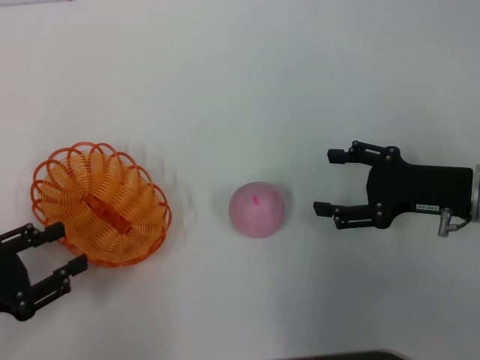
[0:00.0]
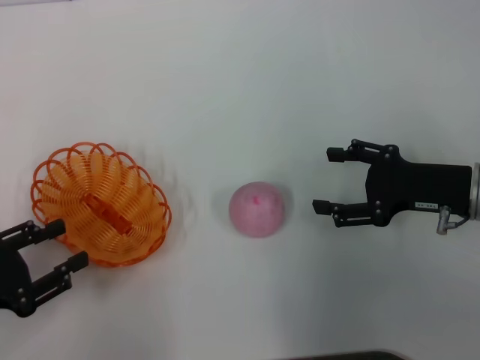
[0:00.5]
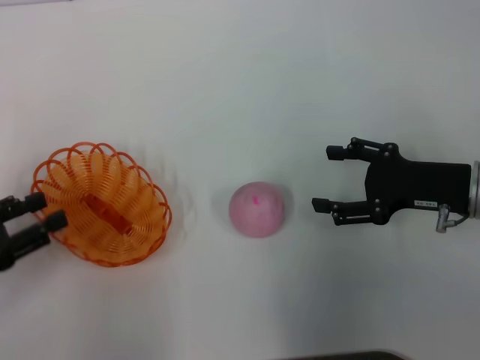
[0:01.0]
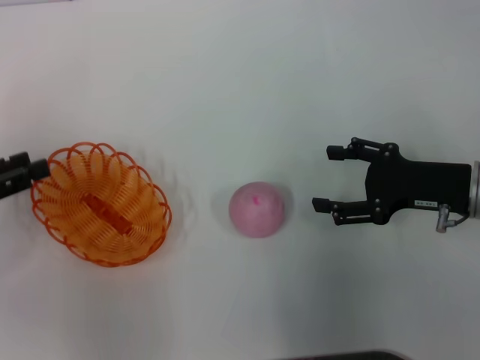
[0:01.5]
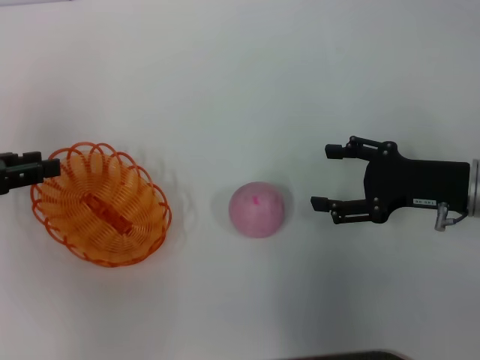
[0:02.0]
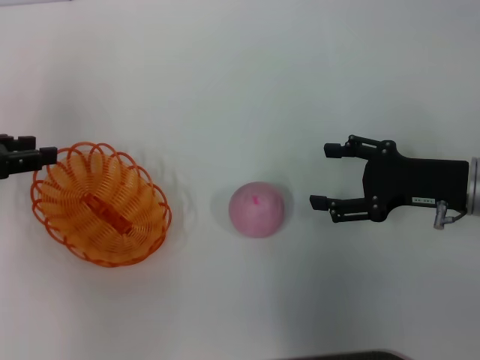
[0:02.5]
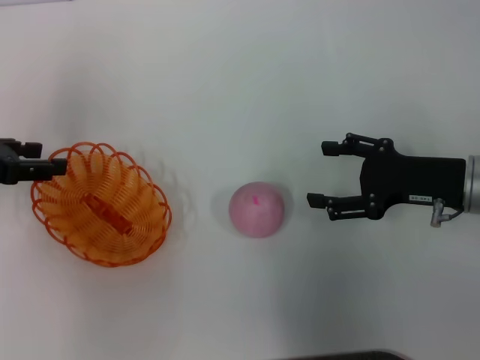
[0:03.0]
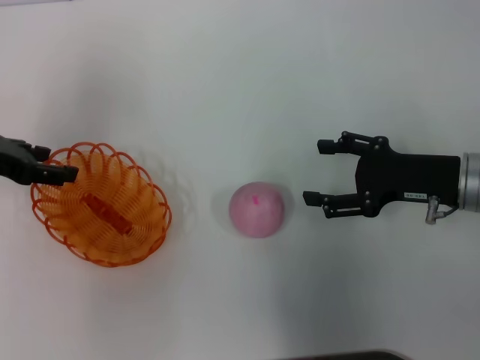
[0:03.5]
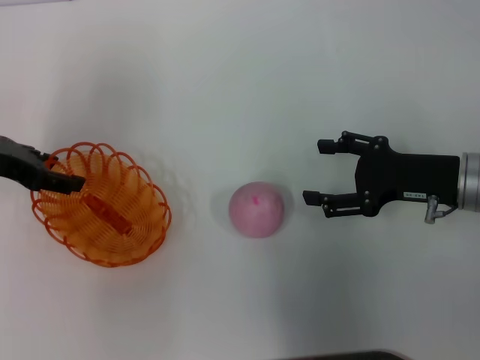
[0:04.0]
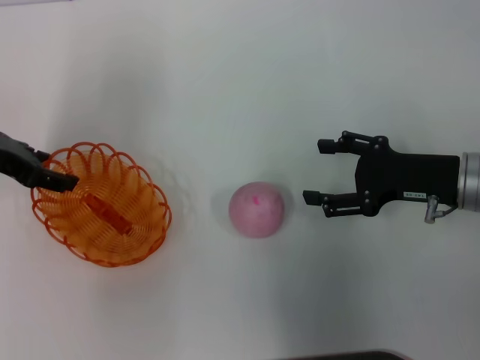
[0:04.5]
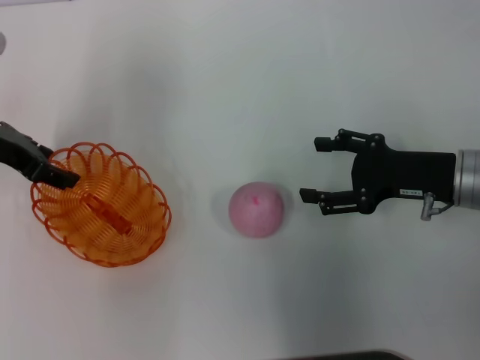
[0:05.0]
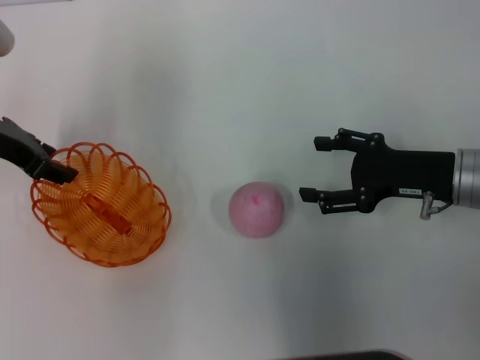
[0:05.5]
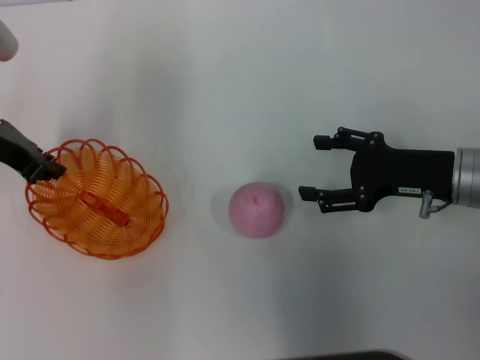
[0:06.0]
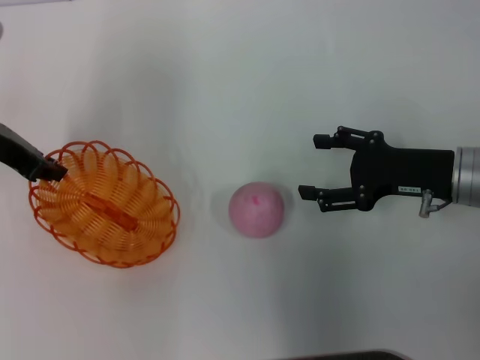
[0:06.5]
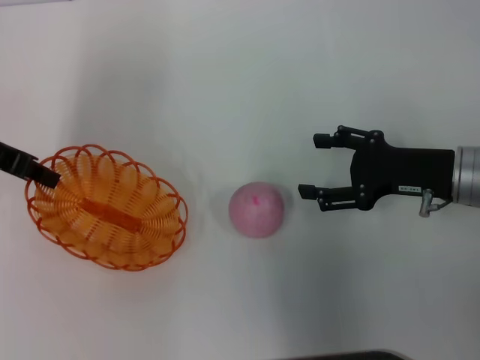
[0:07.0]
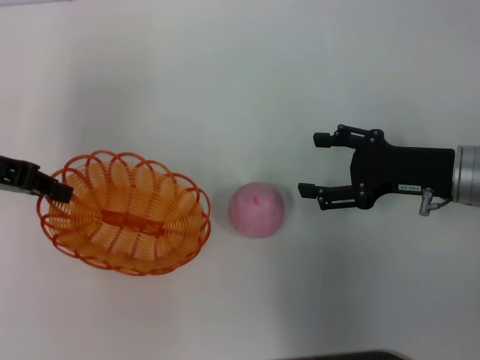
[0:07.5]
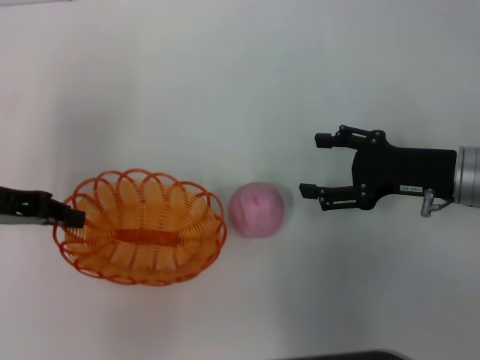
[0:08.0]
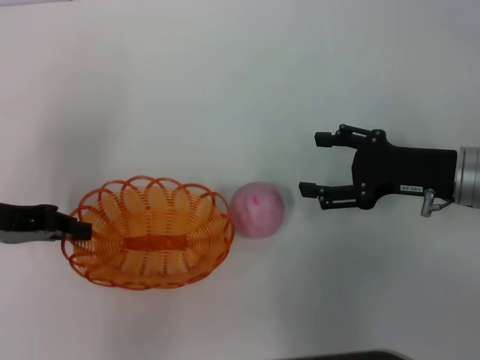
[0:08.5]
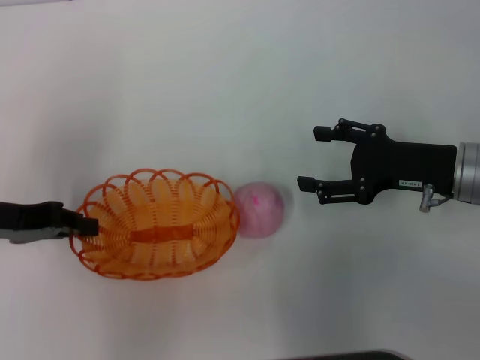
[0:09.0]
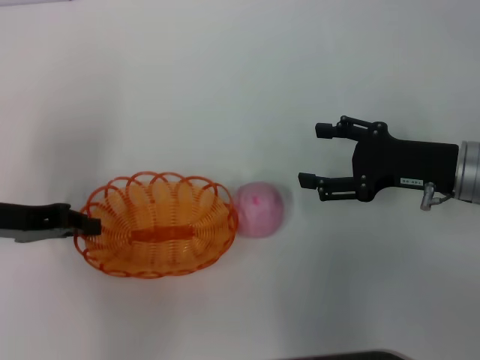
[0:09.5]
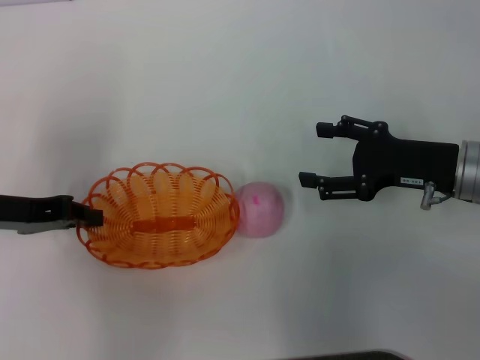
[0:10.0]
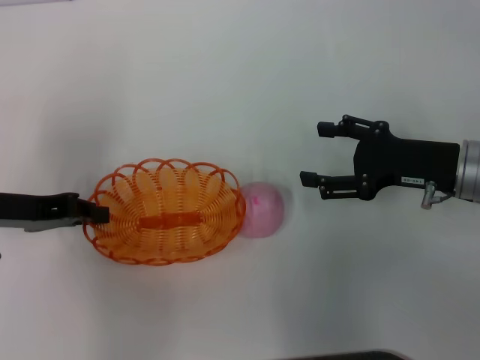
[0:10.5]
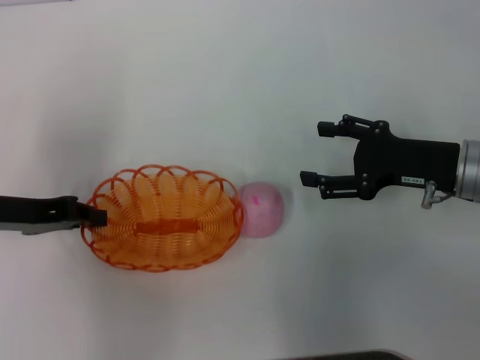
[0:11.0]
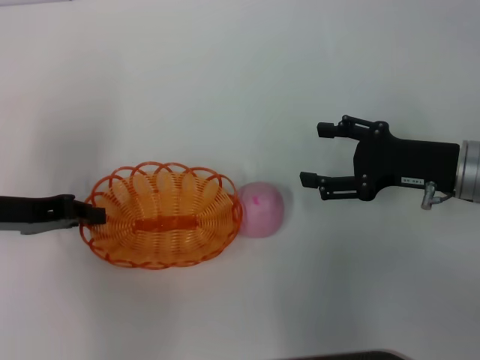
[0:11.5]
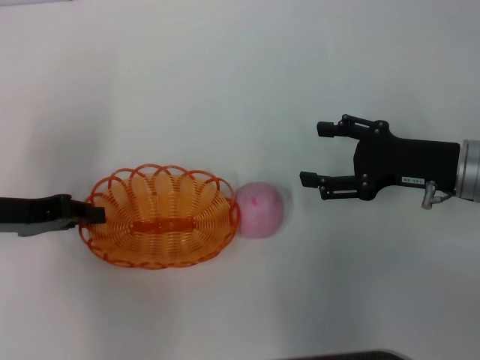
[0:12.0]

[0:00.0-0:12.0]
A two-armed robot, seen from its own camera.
Step, 0:00.0 to 0:07.5: Pick up the basket with the left gripper.
0:00.0 to 0:02.0: The left gripper travels forward and upward by some 15 cm.
0:02.0 to 0:04.0: The left gripper heads forward and to the right, covering some 10 cm.
0:04.0 to 0:06.0: The left gripper closes its fingers.
0:06.0 to 0:08.0: The left gripper goes roughly 5 cm backward.
0:08.0 to 0:10.0: The grippers move only a little.
0:10.0 to 0:12.0: Both grippers stay put.

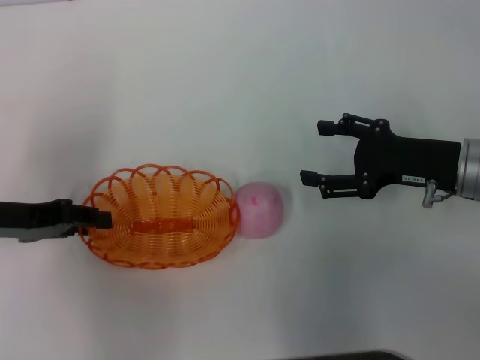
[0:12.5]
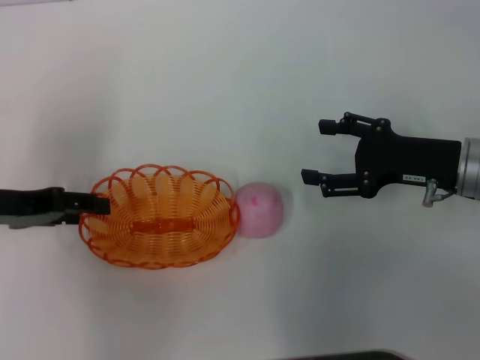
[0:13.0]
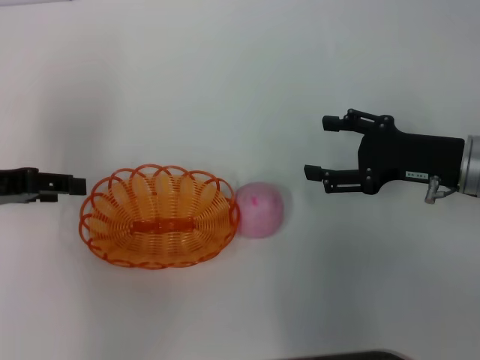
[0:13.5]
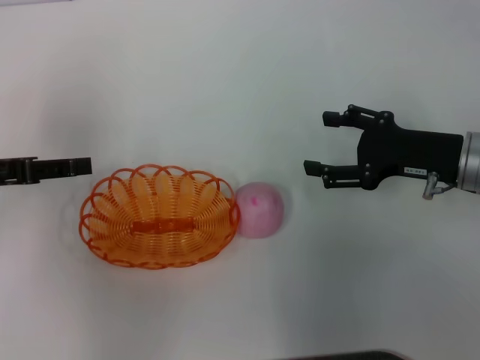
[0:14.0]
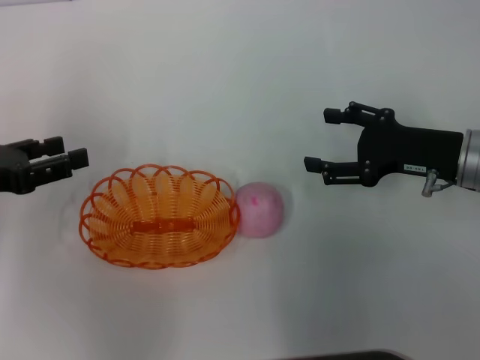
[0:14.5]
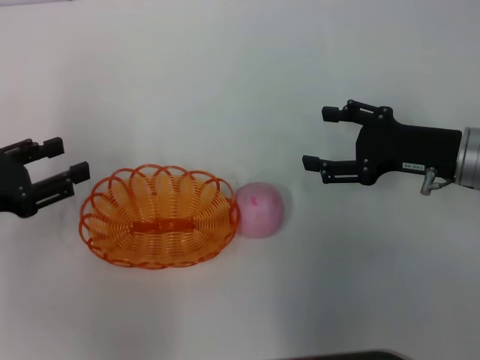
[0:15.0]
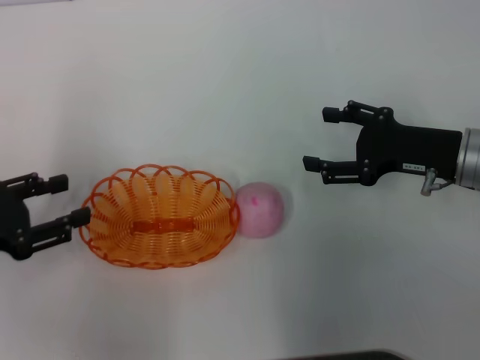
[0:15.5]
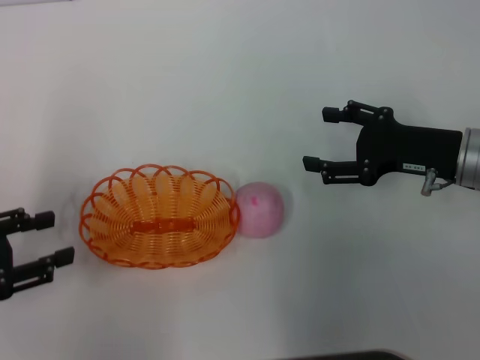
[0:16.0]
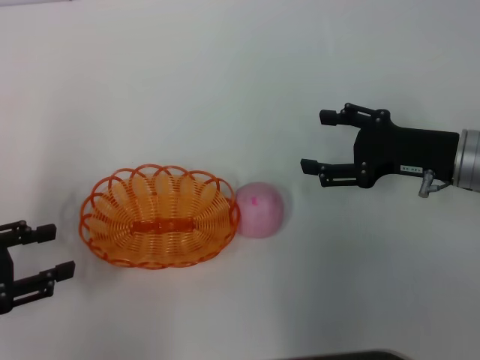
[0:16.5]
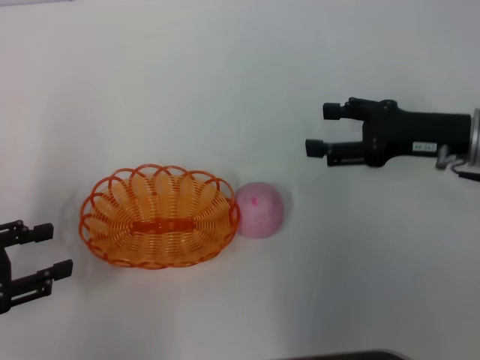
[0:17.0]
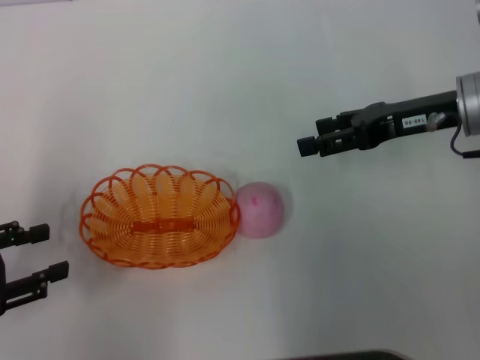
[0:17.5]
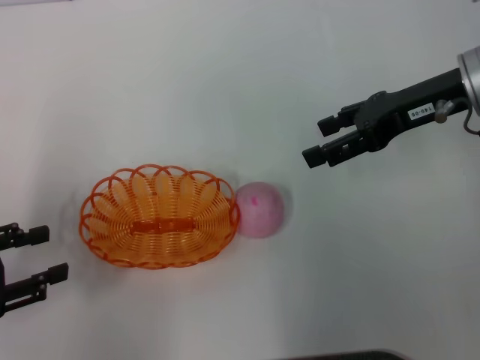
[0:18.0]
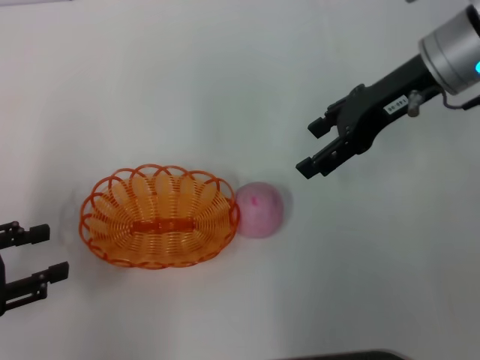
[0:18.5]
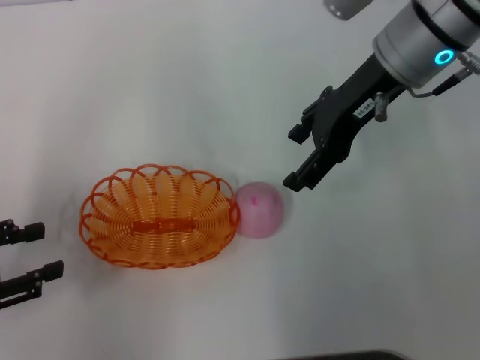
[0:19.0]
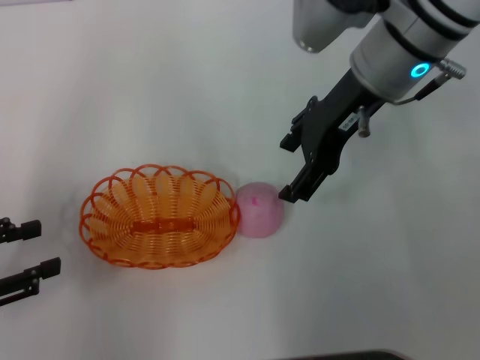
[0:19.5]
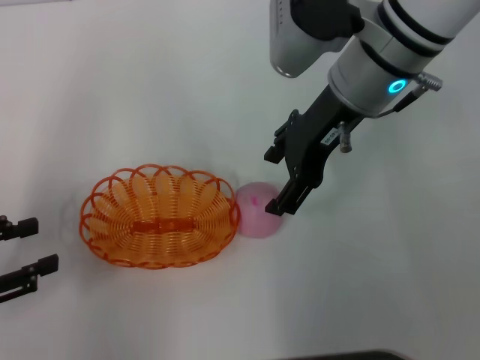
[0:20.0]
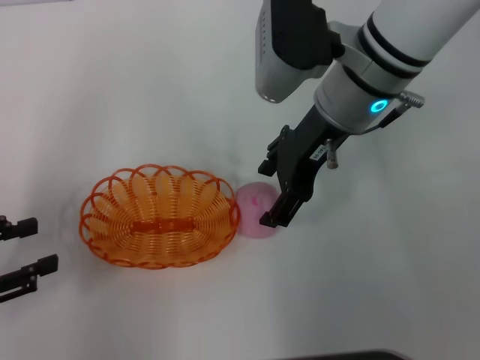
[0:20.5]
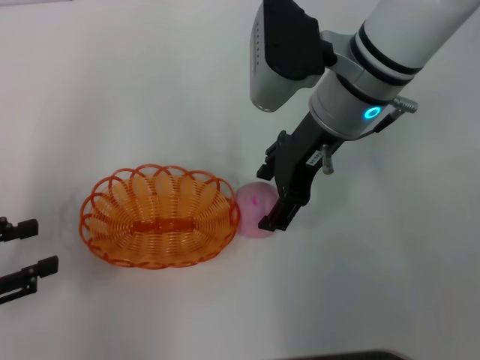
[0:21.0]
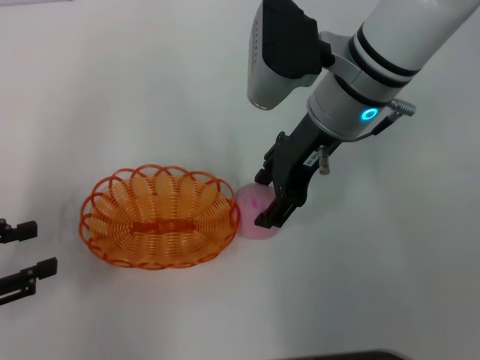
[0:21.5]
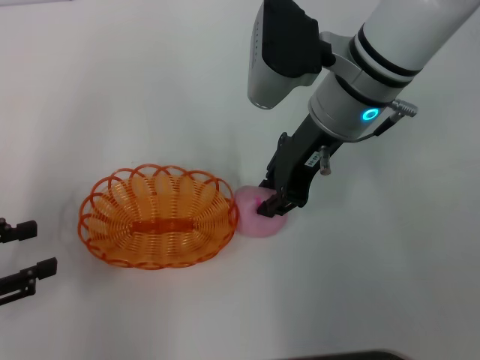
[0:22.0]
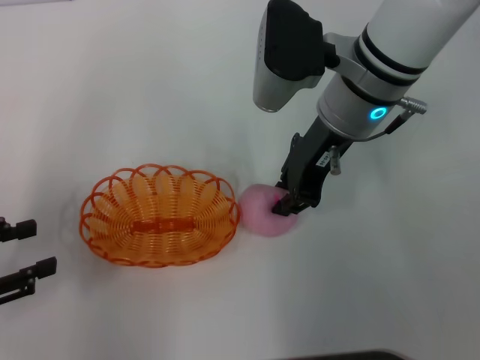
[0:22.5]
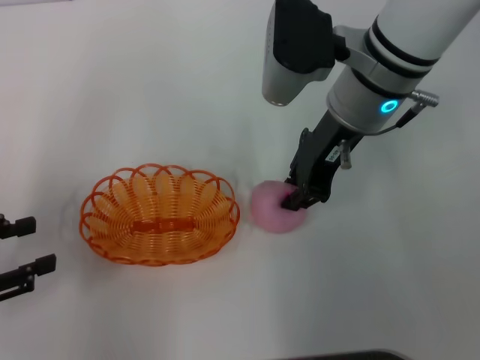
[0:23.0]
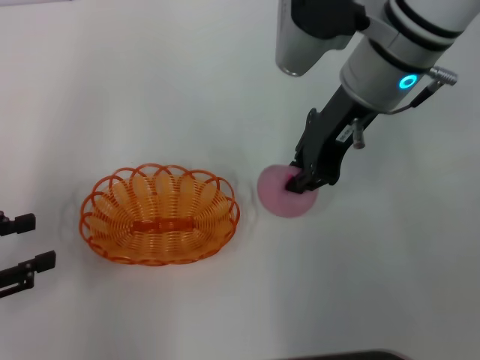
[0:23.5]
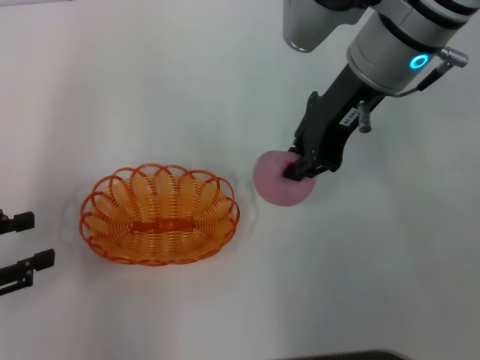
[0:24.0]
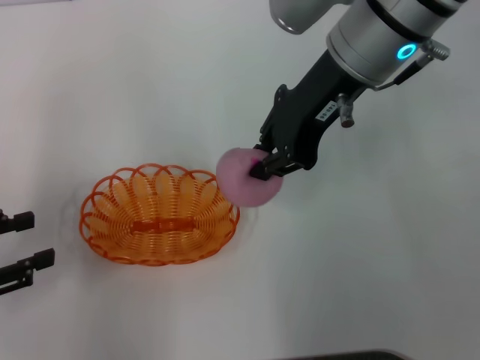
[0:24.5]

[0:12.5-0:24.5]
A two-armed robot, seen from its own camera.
Step, 0:14.0 to 0:24.0: Pick up the peach with the right gripper.
0:12.5 to 0:14.5: The left gripper opens.
0:14.5 to 0:16.5: The left gripper shifts about 5 cm backward.
0:16.5 to 0:18.5: The right gripper travels upward, forward and to the left by about 15 cm.
0:18.5 to 0:20.5: The right gripper travels to the left by approximately 10 cm.
0:20.5 to 0:22.5: The right gripper closes its fingers.
0:22.5 to 0:24.5: The right gripper goes approximately 5 cm upward.

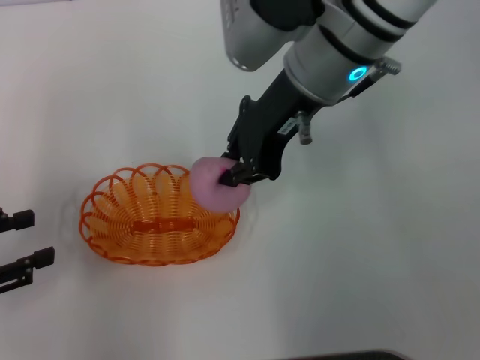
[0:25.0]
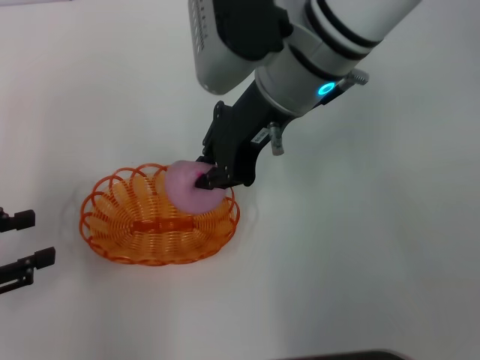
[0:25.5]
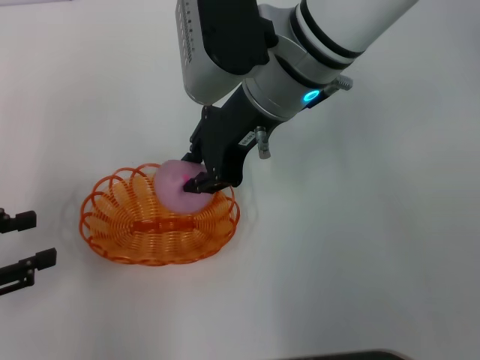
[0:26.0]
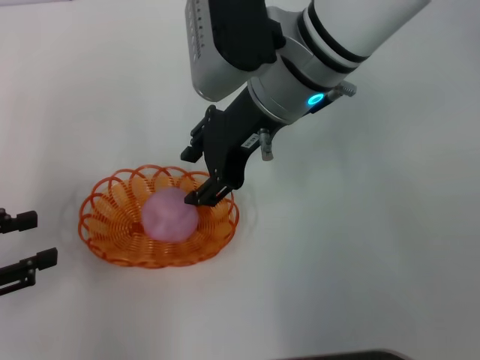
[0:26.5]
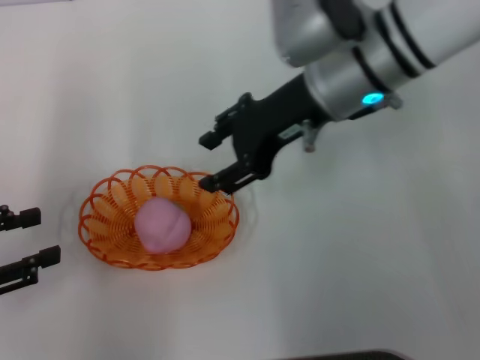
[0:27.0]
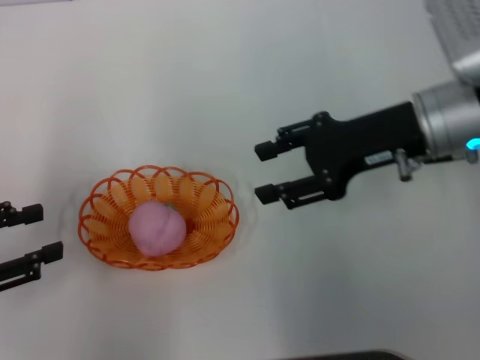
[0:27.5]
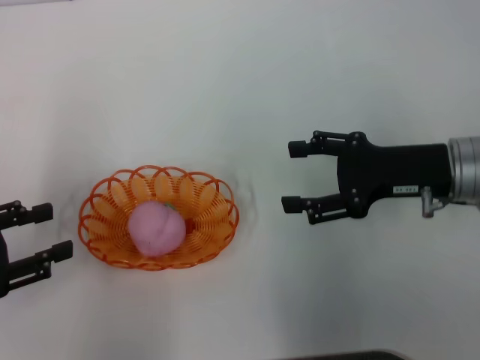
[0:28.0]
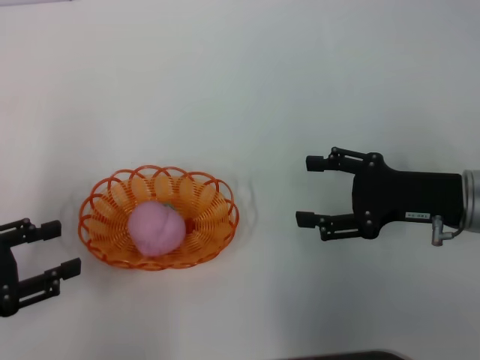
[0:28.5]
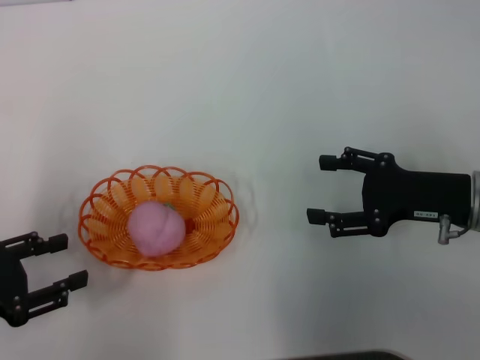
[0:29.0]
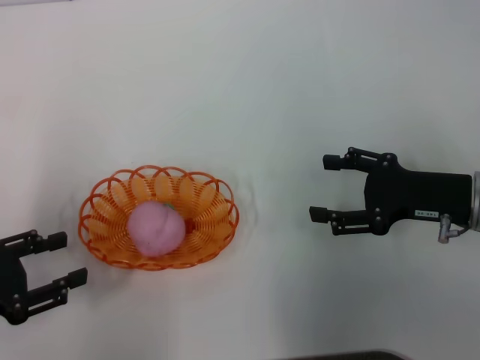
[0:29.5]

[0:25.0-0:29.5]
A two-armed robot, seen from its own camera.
Step, 0:25.0 to 0:27.0: Place the peach into the basket with the right gripper.
0:25.0 to 0:27.0: The right gripper opens its fingers.
0:27.0 to 0:29.5: The right gripper goes approximately 20 cm to the right, downward and backward.
